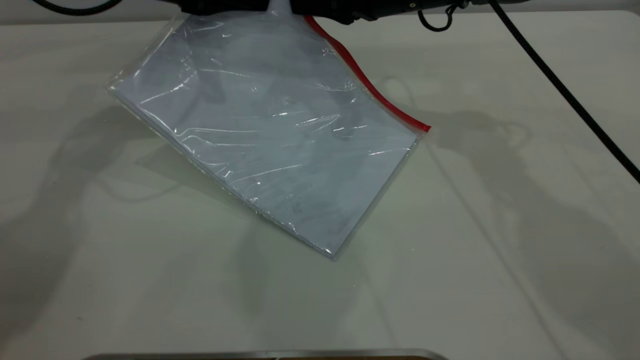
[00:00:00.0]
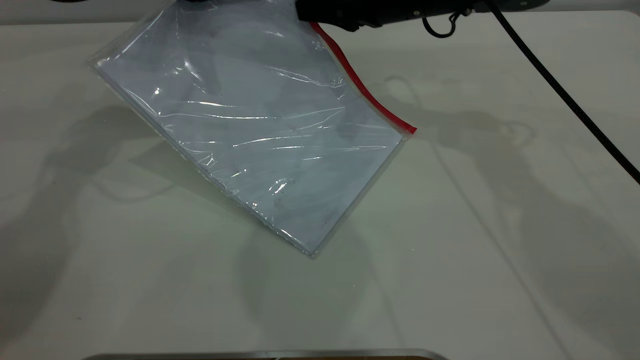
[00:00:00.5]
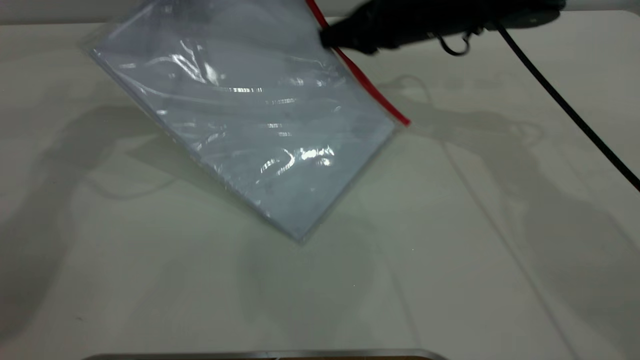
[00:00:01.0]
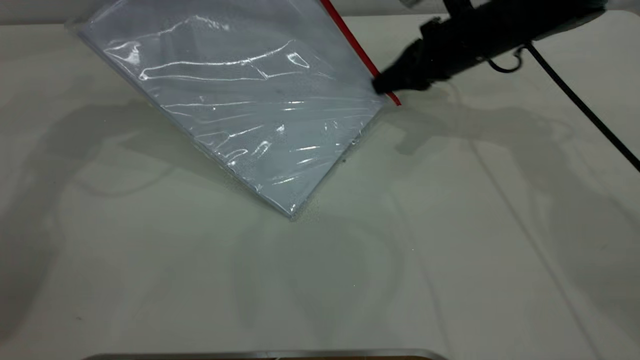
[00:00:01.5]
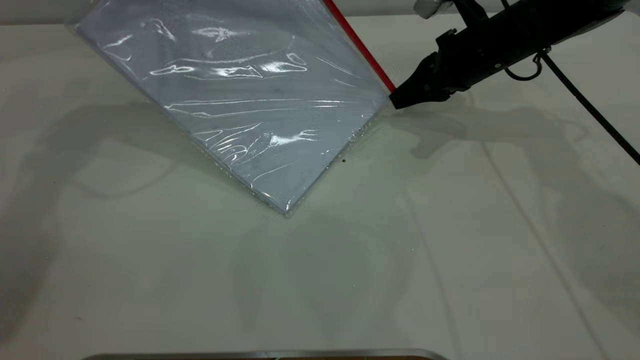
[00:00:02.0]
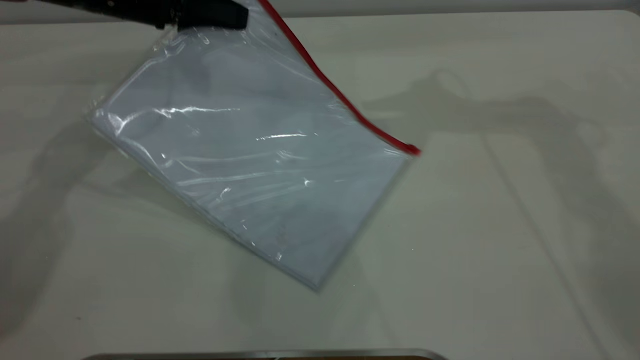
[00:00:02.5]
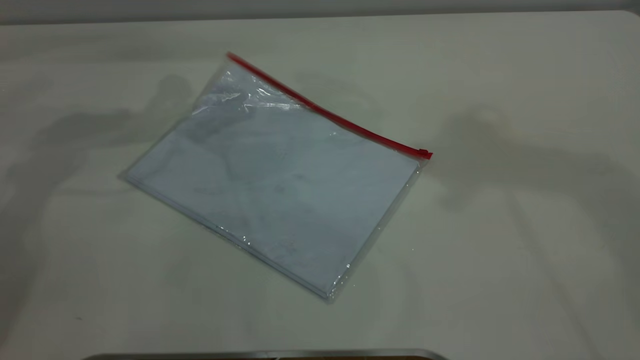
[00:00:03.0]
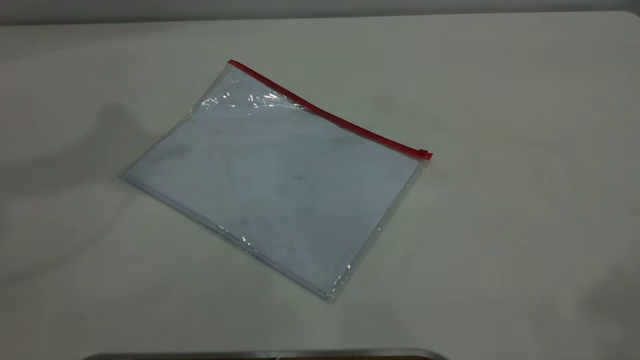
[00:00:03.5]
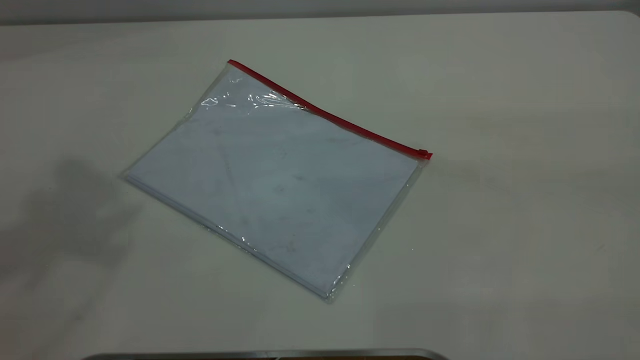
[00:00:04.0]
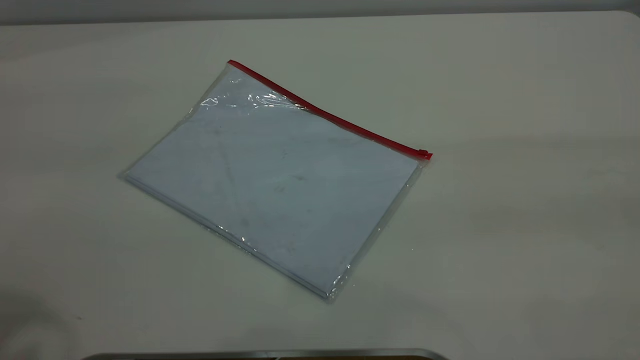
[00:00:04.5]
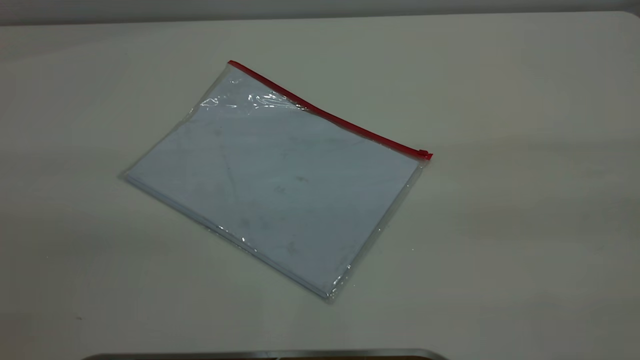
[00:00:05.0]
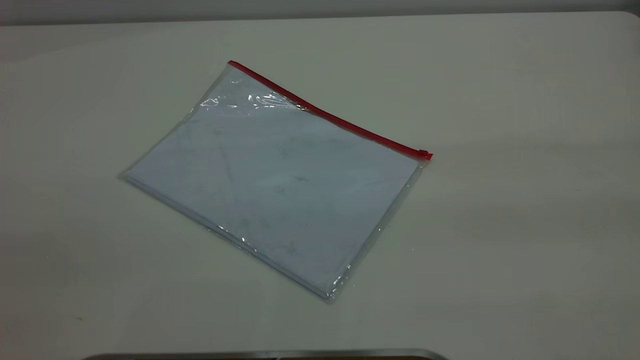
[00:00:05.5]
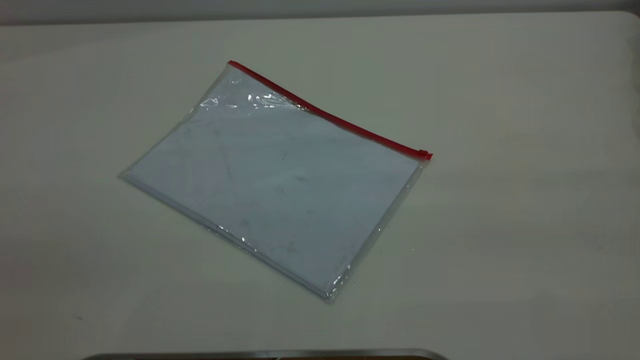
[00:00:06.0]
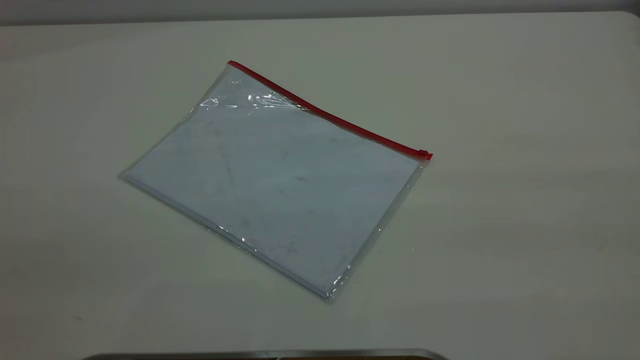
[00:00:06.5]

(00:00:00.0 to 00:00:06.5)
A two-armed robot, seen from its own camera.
Step, 00:00:00.0 - 00:00:02.0: Pulling up the zipper on the transparent plastic bag with the right gripper to close it.
Step, 00:00:02.5 - 00:00:03.0: Place the transparent plastic bag.
00:00:00.0 - 00:00:02.0: The right gripper is displaced to the right and downward by approximately 10 cm. The left gripper moves roughly 5 cm.
00:00:02.0 - 00:00:04.5: The two grippers go approximately 40 cm backward and upward. The left gripper opens its fingers; the right gripper opens.
